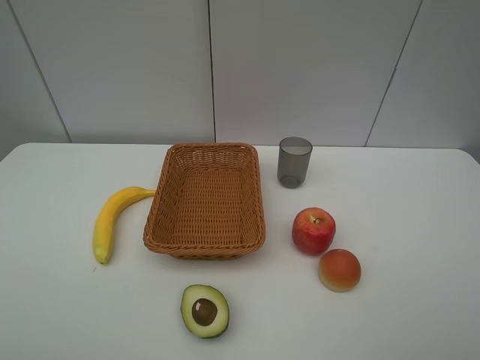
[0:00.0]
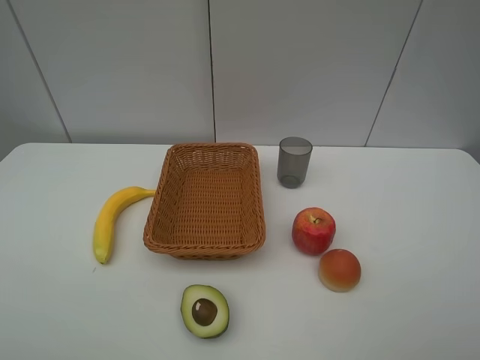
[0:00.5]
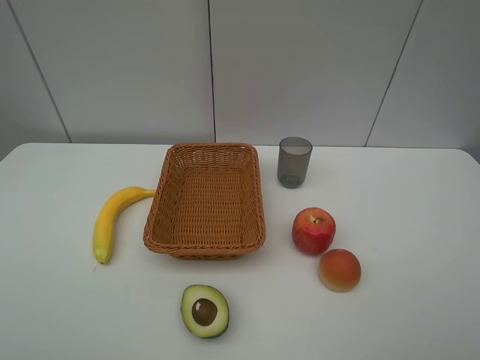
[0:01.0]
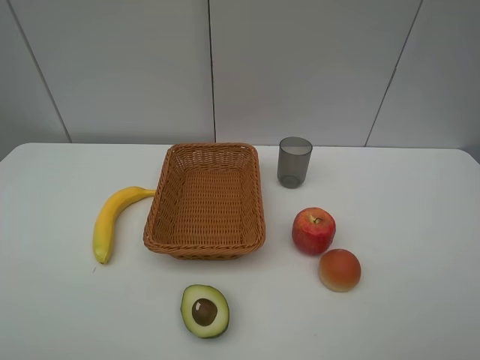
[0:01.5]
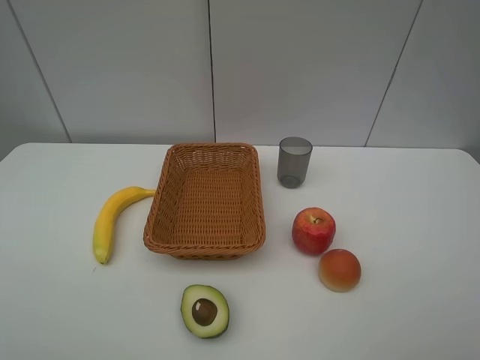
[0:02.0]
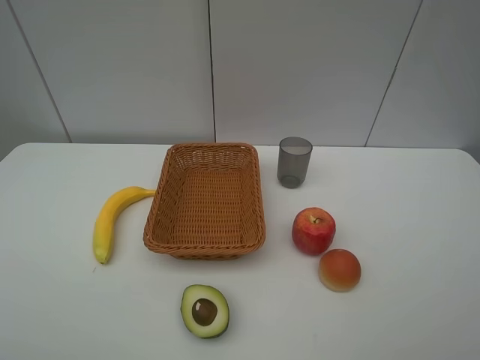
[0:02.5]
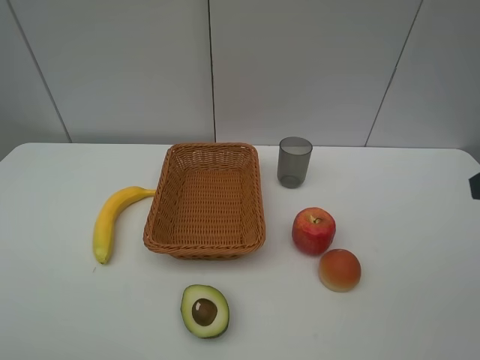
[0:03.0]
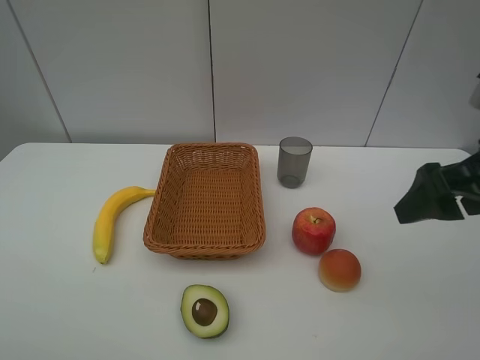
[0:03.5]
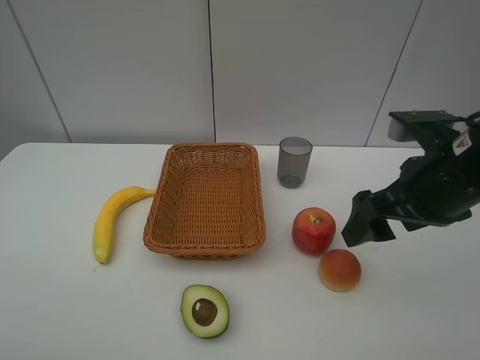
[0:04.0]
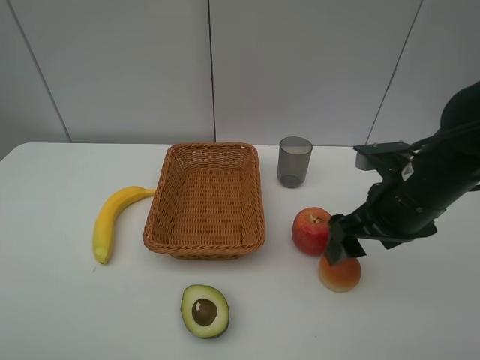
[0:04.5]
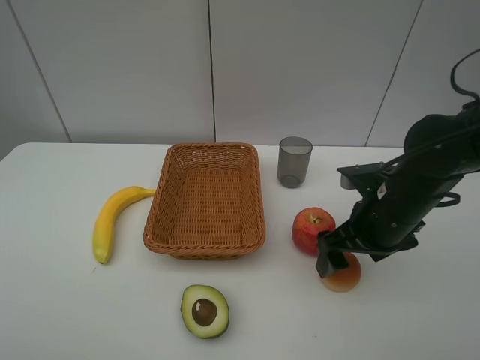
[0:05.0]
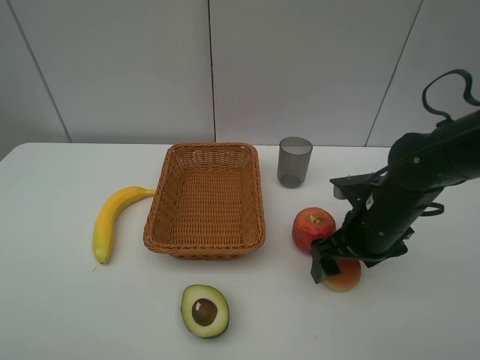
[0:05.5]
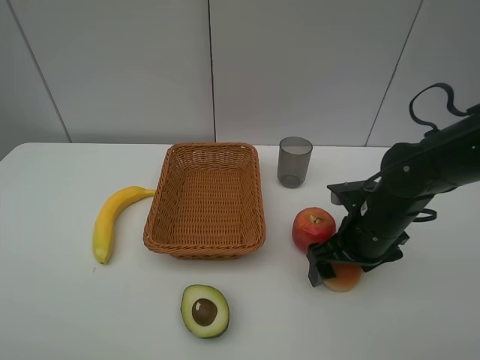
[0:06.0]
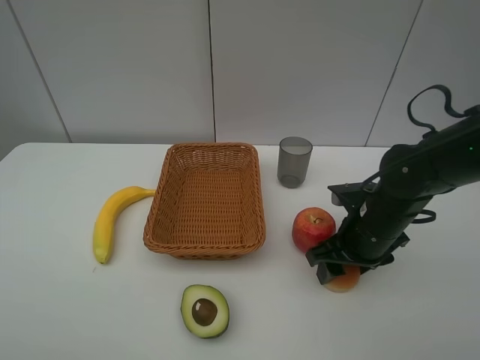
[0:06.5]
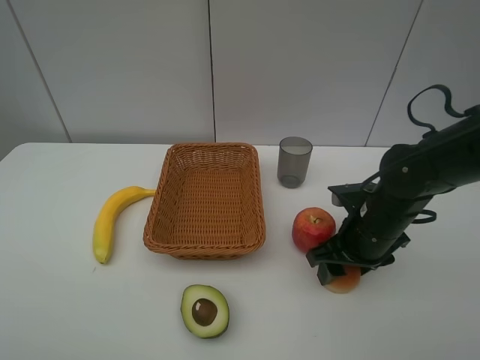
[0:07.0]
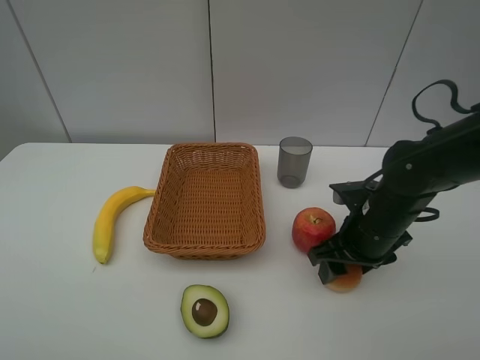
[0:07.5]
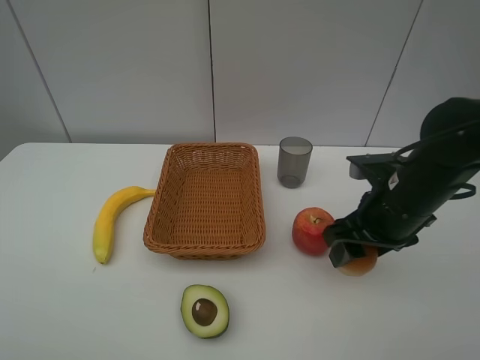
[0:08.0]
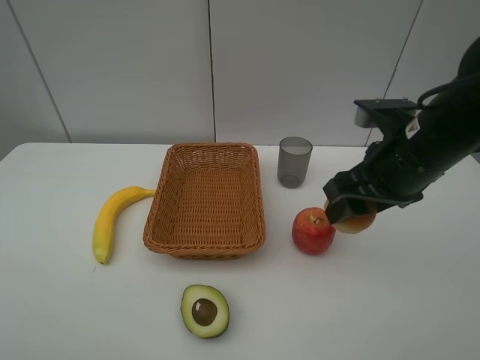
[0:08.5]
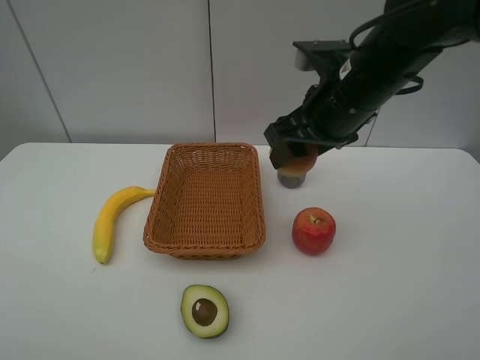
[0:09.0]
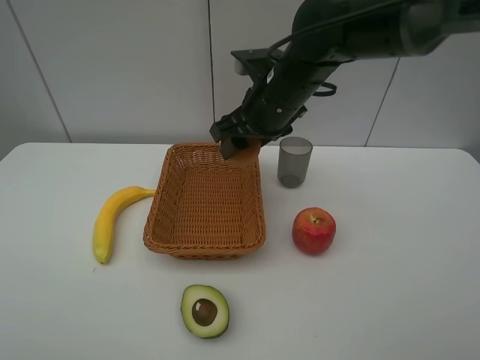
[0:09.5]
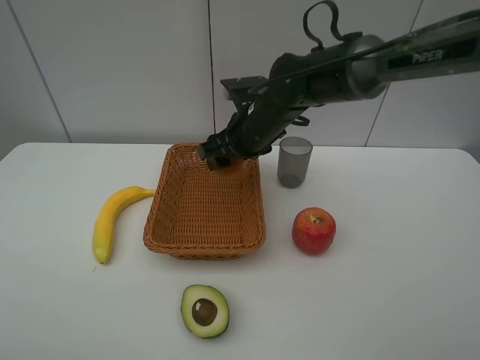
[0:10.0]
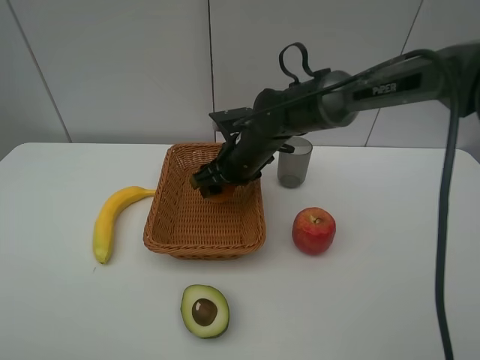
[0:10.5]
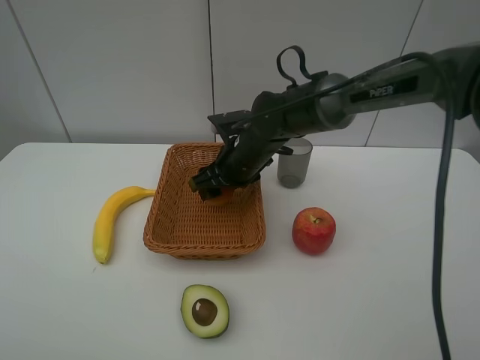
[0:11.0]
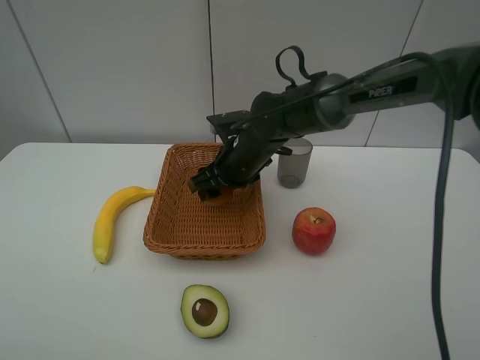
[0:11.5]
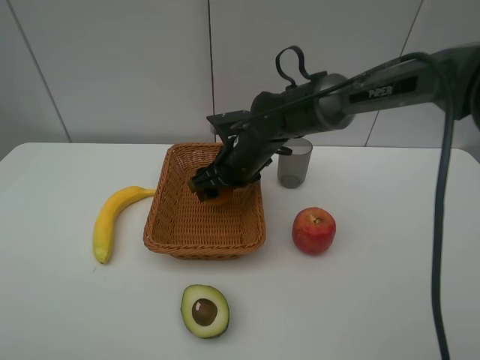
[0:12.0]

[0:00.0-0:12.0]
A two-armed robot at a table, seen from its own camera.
0:00.0 to 0:02.0: The two grippers keep their place.
0:02.0 to 0:04.0: The right gripper goes approximately 25 cm forward and to the left.
0:04.0 to 0:06.0: The right gripper travels downward and forward by roughly 15 cm.
0:06.0 to 0:08.0: The right gripper is displaced upward by approximately 5 cm, and closes up.
0:08.0 to 0:10.0: The right gripper moves to the left and forward, roughly 20 cm.
0:10.0 to 0:12.0: The right gripper ends up roughly 5 cm from where it was.

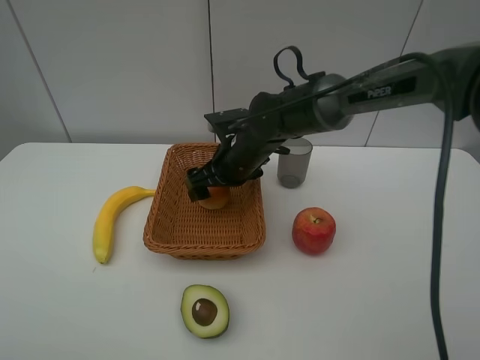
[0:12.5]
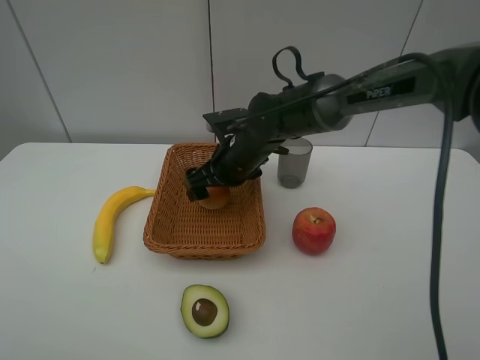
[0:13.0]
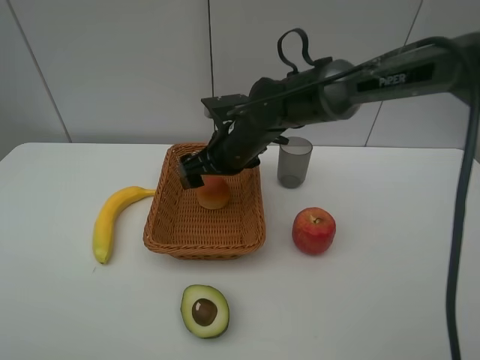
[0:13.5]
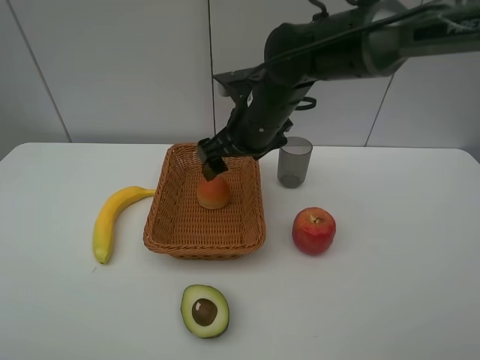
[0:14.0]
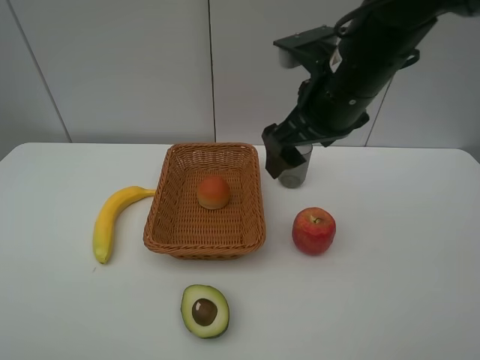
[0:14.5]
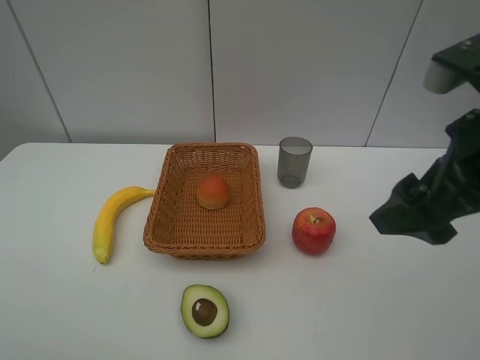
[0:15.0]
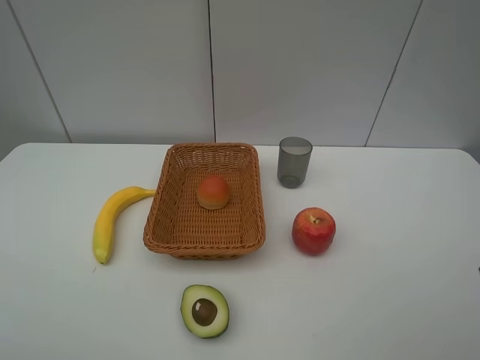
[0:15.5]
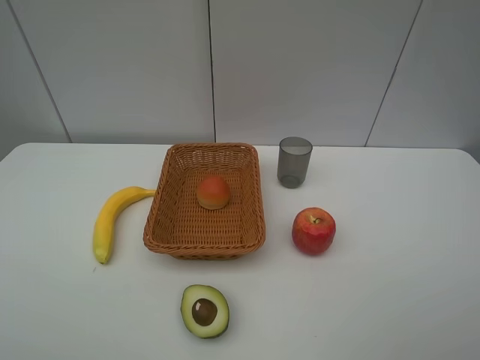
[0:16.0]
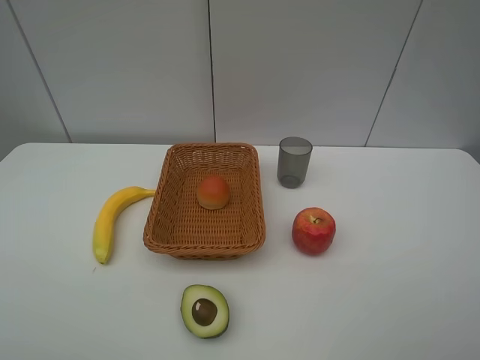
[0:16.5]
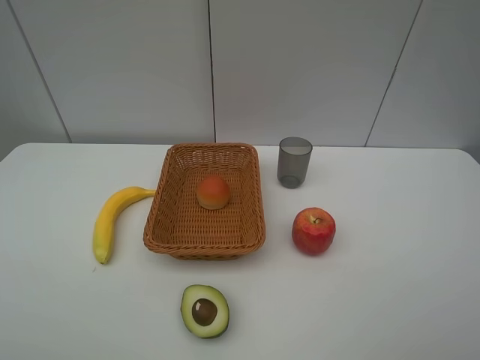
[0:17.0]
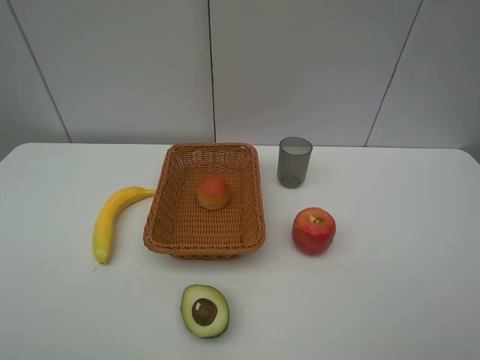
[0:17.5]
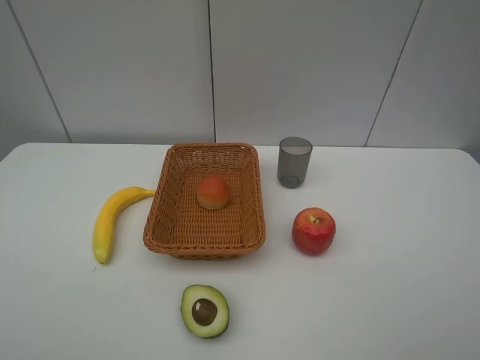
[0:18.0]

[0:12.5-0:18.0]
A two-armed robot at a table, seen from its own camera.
0:12.5 to 0:14.5: The right gripper is displaced upward, to the right and backward by approximately 20 cm.
0:14.5 to 0:16.0: The right gripper goes about 30 cm backward and to the right.
